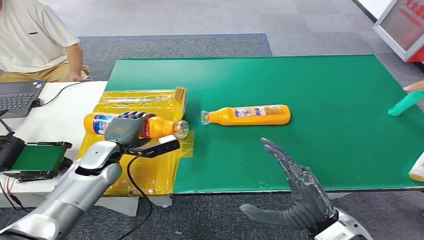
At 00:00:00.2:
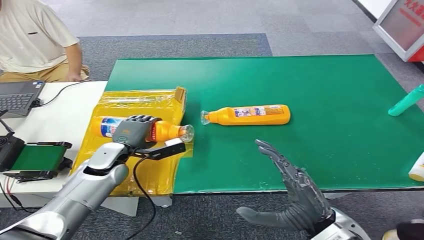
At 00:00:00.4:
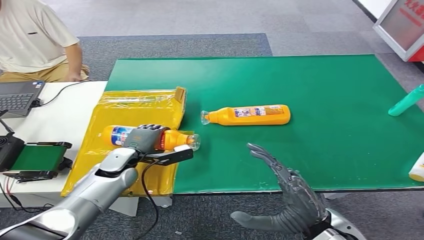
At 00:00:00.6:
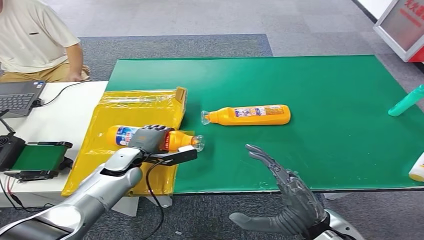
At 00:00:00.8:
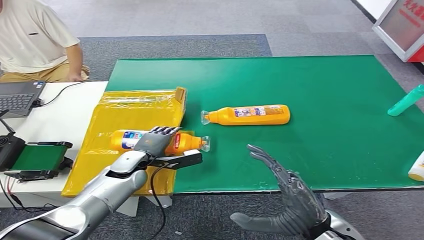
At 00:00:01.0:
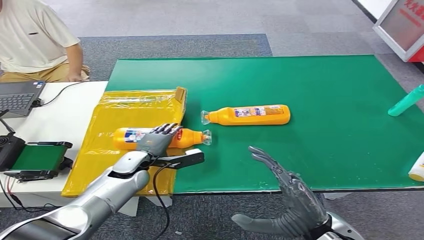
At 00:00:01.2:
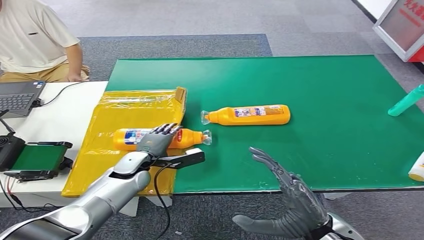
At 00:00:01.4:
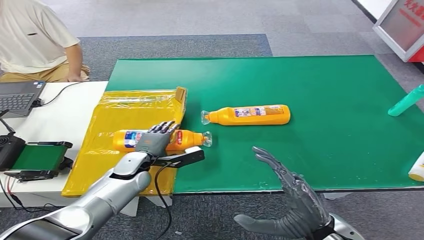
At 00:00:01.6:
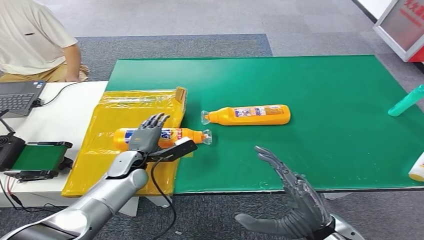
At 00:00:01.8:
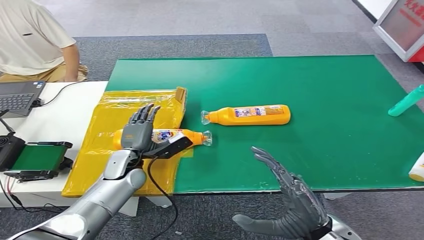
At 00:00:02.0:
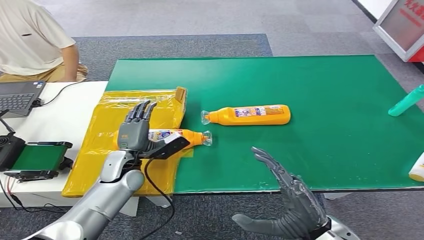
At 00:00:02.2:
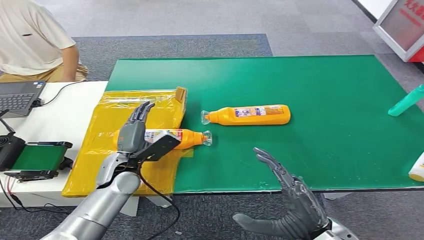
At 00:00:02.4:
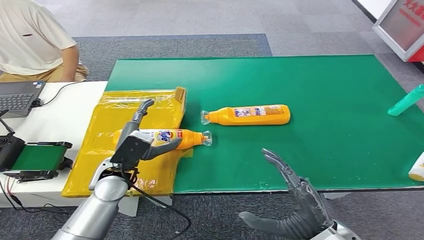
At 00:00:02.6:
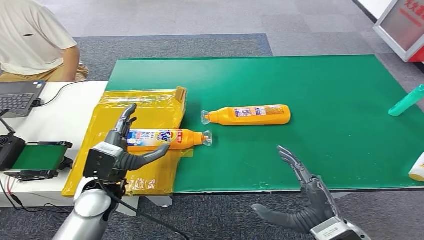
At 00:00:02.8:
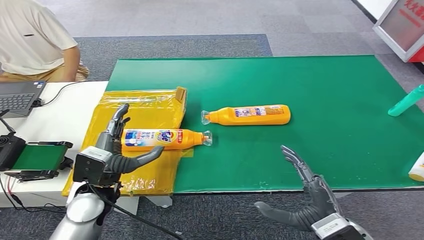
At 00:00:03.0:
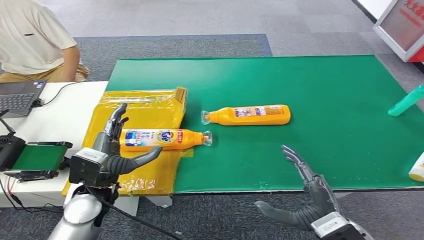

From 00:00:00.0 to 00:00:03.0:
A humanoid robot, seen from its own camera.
Step, from 00:00:00.0 to 00:00:03.0: Turn the bottle to the front side.
From 00:00:00.0 to 00:00:01.6: The left hand shifts by approximately 5 cm.
From 00:00:01.6 to 00:00:03.0: The left hand travels backward and upward by about 15 cm.

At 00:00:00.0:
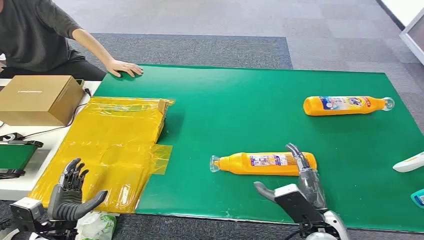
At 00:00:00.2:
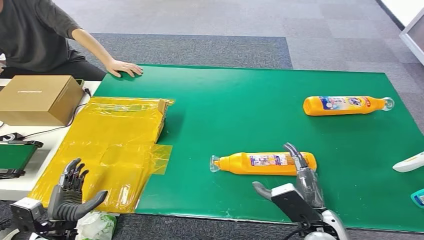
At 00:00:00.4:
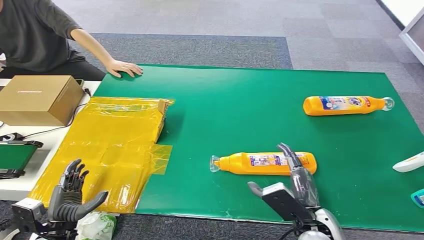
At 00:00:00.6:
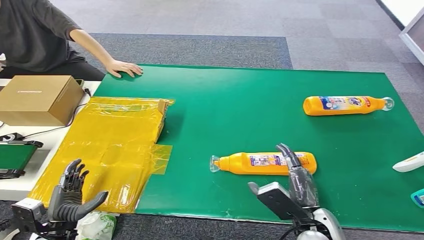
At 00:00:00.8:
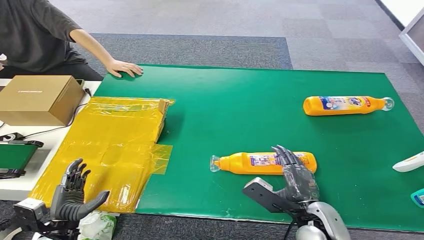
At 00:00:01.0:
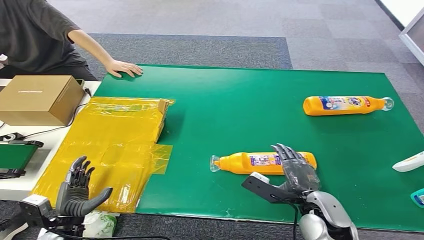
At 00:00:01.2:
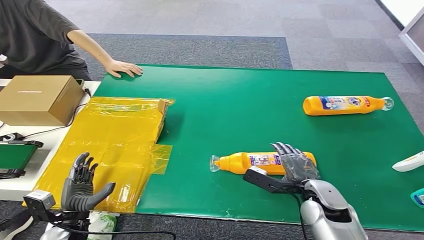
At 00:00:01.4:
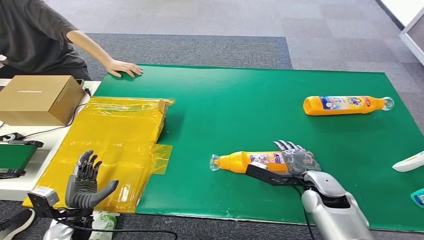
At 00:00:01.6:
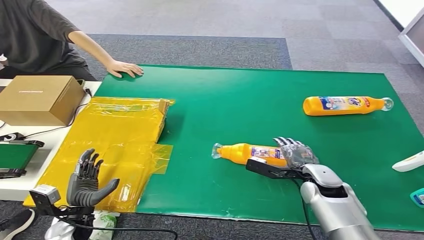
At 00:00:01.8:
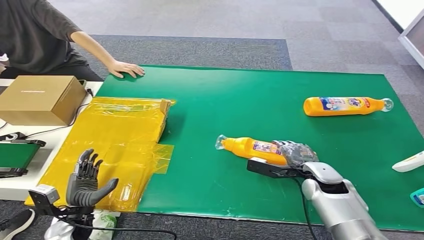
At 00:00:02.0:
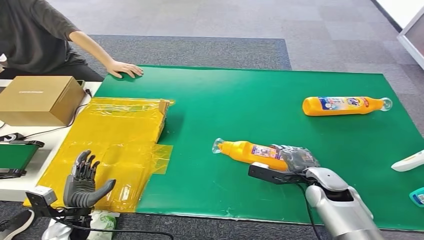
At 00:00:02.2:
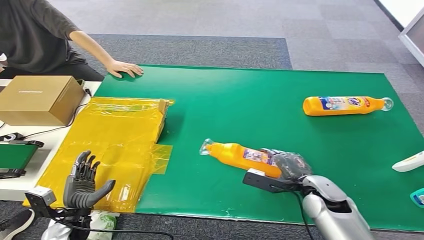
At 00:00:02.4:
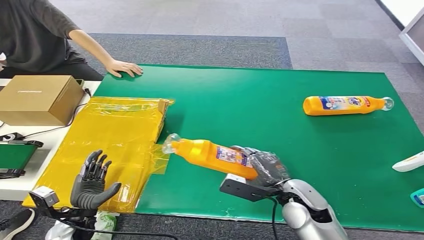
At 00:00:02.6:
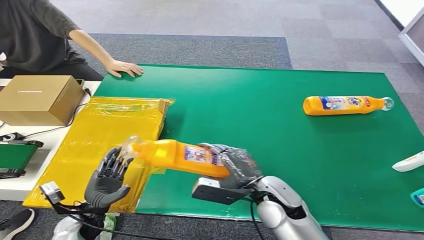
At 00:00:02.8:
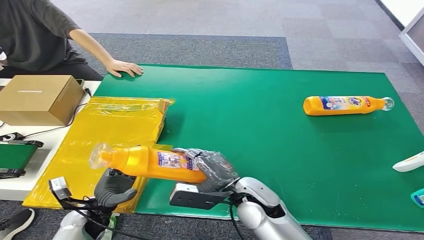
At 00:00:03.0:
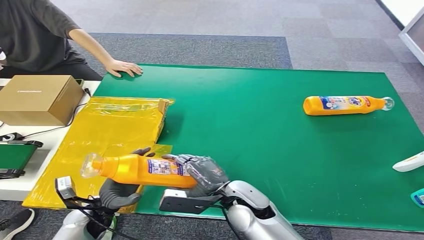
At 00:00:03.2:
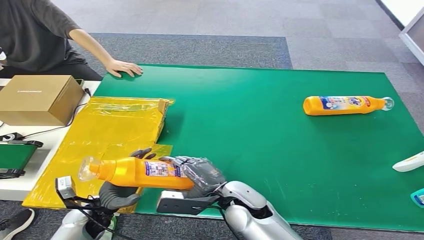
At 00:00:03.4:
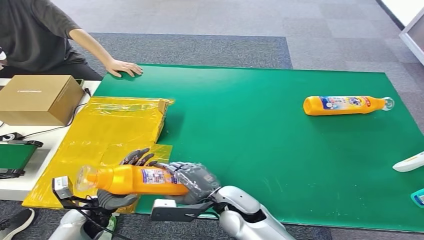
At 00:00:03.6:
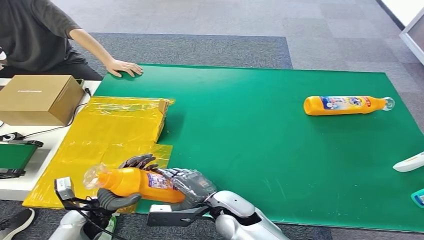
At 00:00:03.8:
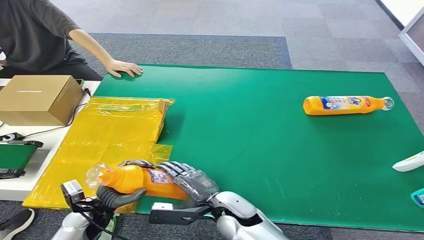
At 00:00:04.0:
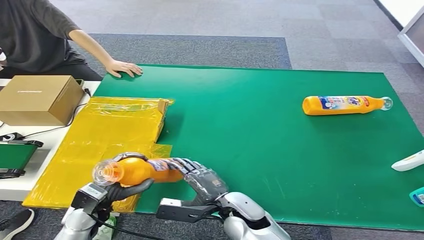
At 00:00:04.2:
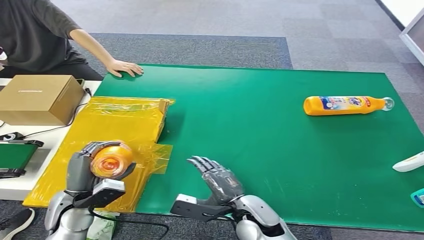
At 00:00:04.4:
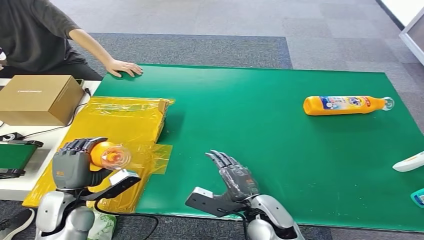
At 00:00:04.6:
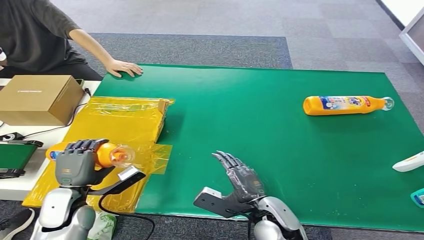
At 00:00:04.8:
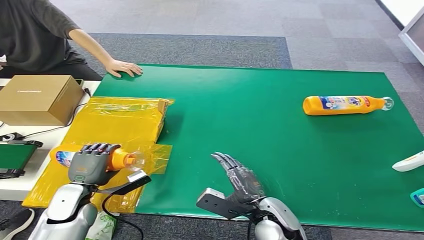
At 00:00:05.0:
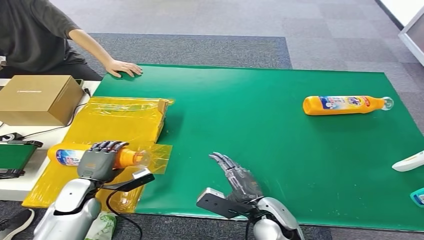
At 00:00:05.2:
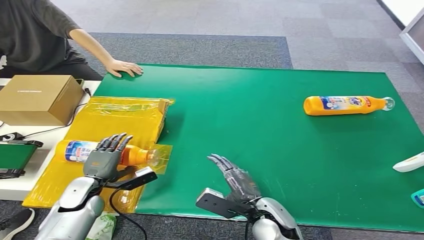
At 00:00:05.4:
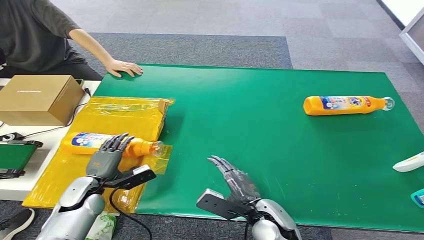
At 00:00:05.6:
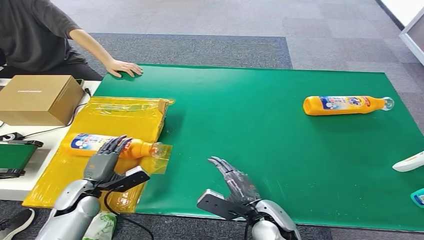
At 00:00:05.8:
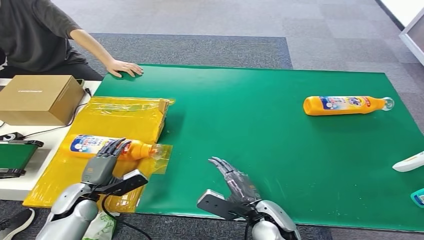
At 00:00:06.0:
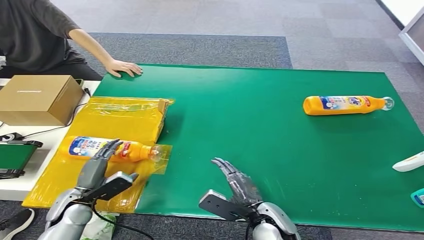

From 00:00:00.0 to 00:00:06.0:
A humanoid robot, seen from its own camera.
Step, from 00:00:00.0 to 00:00:02.4: Pick up the bottle from the table.
Step, from 00:00:02.6 to 00:00:06.0: Turn the bottle to the front side.
From 00:00:03.0 to 00:00:04.4: The right hand ends up about 5 cm from where it was. Meanwhile the left hand is displaced upward by roughly 10 cm.
From 00:00:04.4 to 00:00:06.0: The left hand moves downward, roughly 10 cm.
